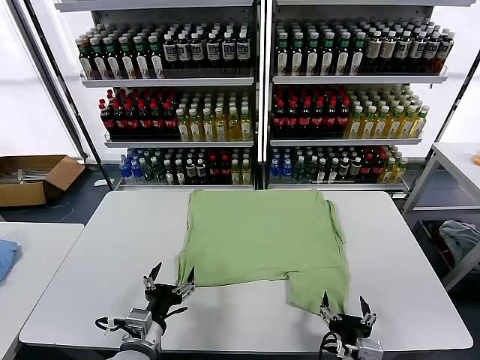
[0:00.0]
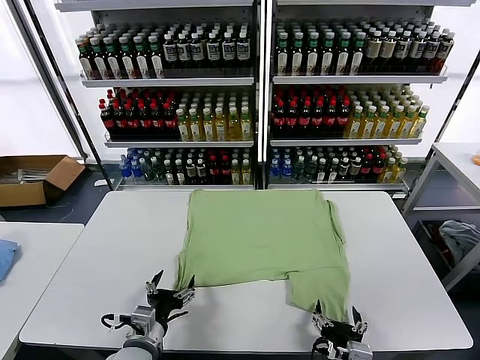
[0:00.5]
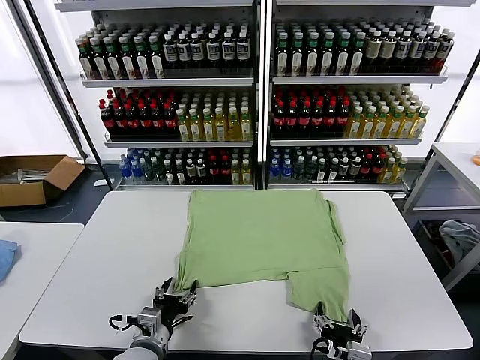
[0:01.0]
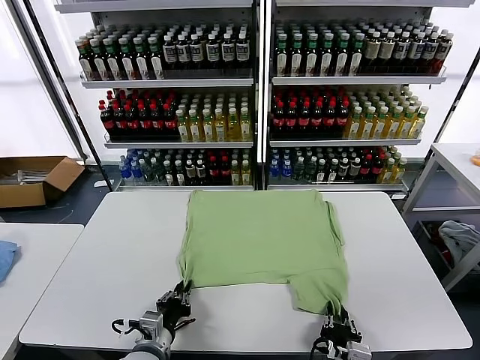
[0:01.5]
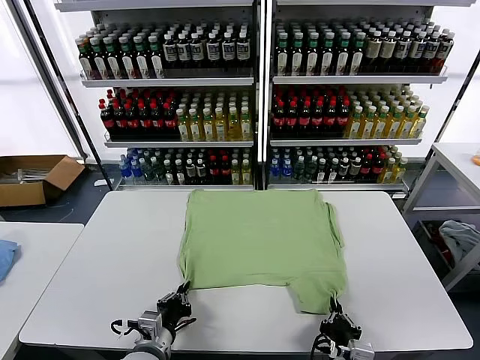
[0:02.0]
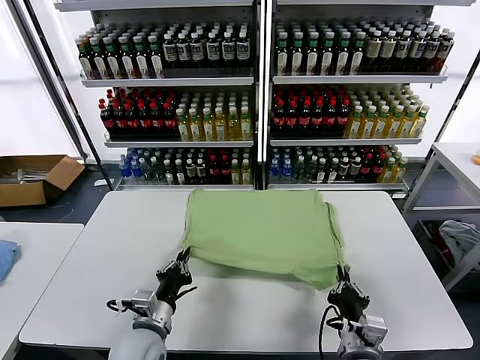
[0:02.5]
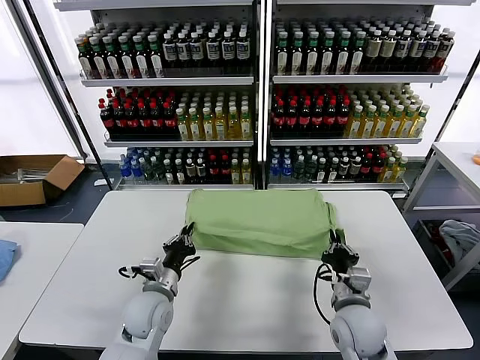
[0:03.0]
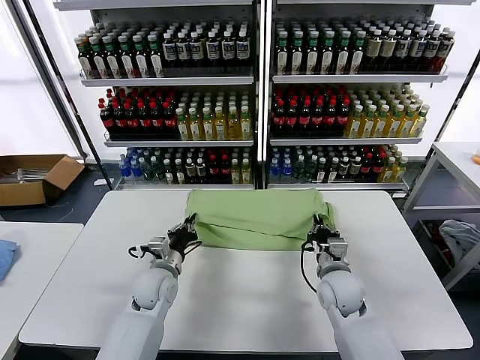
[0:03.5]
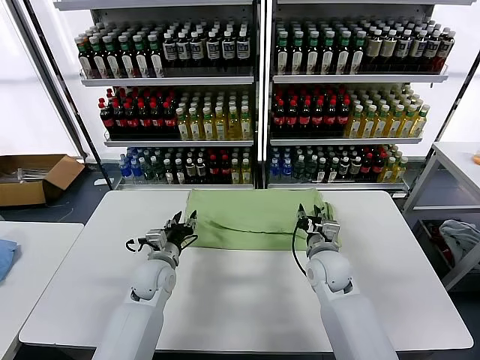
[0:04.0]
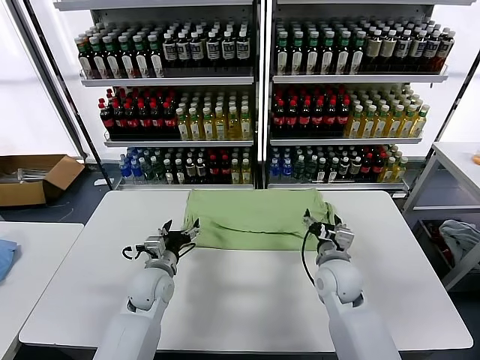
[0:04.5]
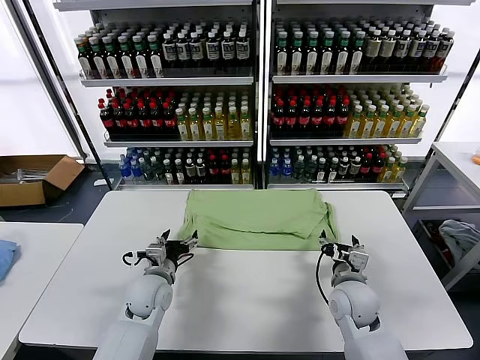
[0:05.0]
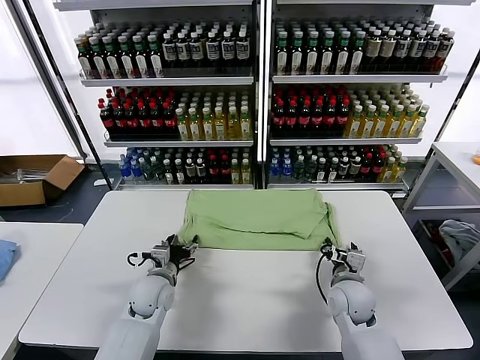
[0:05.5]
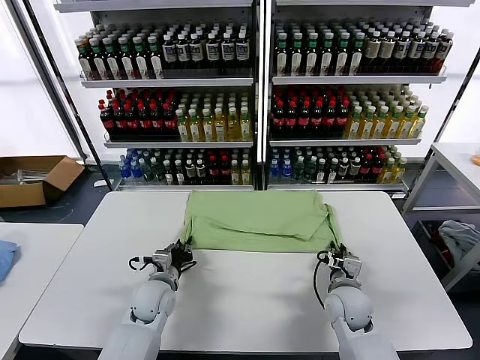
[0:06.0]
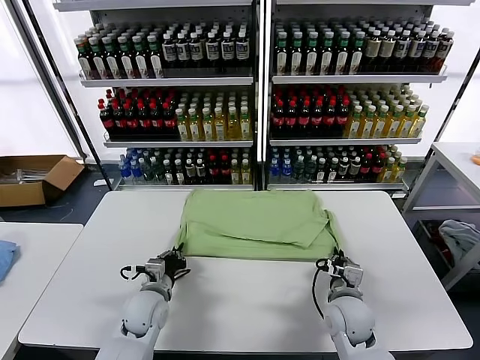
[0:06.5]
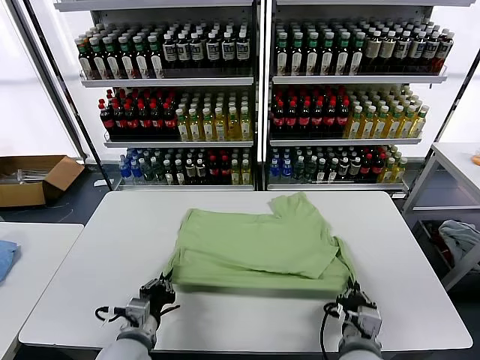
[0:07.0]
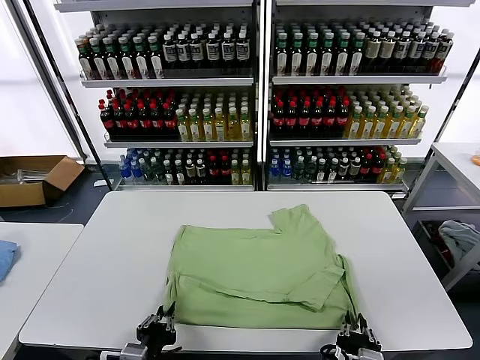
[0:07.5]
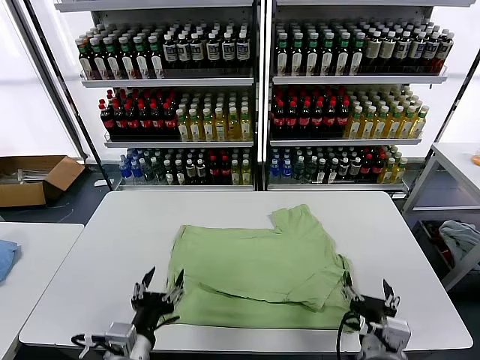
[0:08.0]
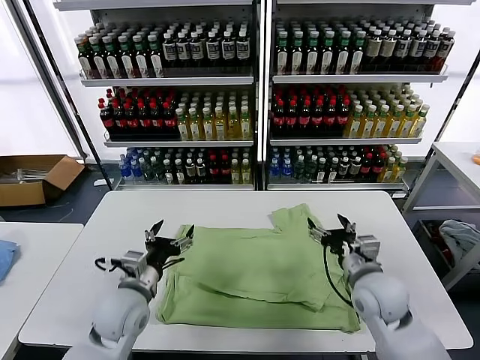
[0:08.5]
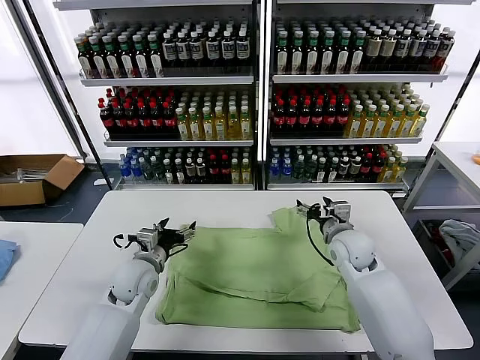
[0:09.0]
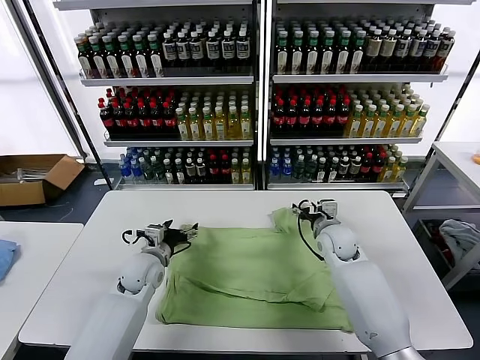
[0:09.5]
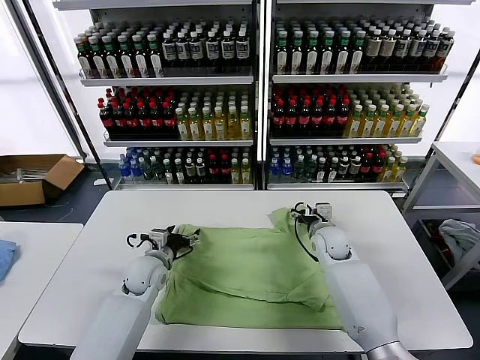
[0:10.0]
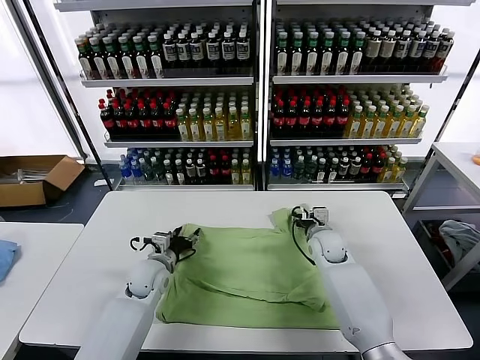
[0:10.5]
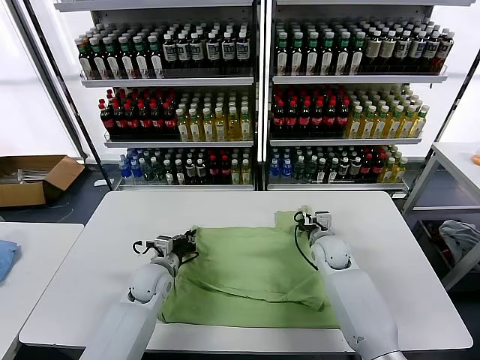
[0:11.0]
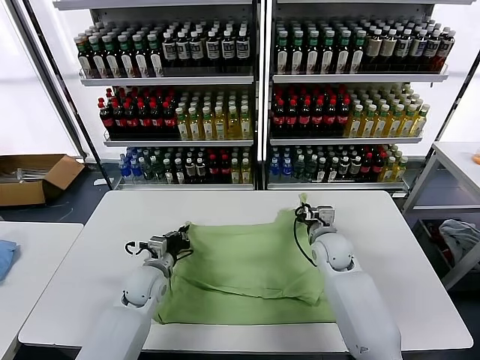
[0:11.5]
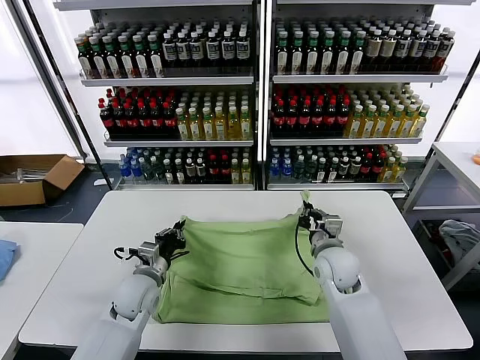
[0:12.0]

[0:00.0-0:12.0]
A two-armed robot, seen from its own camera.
Task of the whole recording: fold and organize the clothes.
Step, 0:00.0 to 0:01.5: use both grippers simultaneously to clamp the lower edge of the clothing fabric.
Step, 0:02.0 to 0:04.0: use both grippers to drag the lower edge of the fabric forward and fold it over the upper edge.
Step, 0:04.5 to 0:07.5: Drag the clothes downward with both gripper.
Step, 0:08.0 to 0:11.0: use both grippers simultaneously to clamp the upper edge of the clothing fabric.
0:02.0 to 0:04.0: The two grippers go some 25 cm forward. The right gripper opens. Meanwhile the left gripper opens up.
0:04.0 to 0:06.0: The right gripper heads backward and downward, covering roughly 10 cm, and closes up. The left gripper changes place by roughly 5 cm, and opens and closes again.
0:06.0 to 0:08.0: Both grippers move backward and upward, some 20 cm. The left gripper opens up. The right gripper opens its fingers.
0:08.0 to 0:10.0: Both grippers move forward, approximately 30 cm.
0:10.0 to 0:12.0: The left gripper is displaced backward by about 5 cm, and closes up. Meanwhile the right gripper is displaced backward by approximately 10 cm, and closes up.

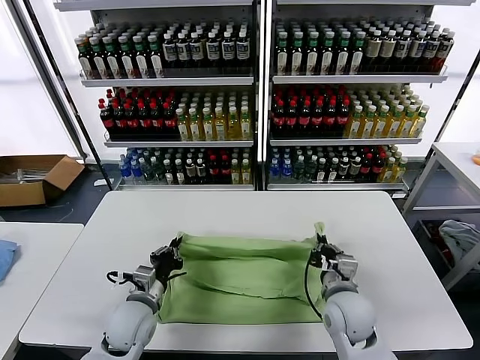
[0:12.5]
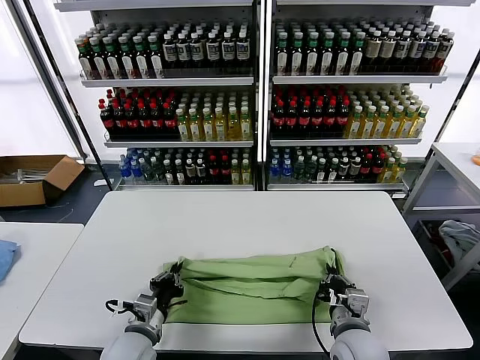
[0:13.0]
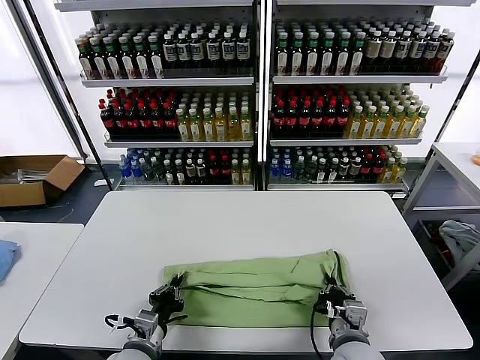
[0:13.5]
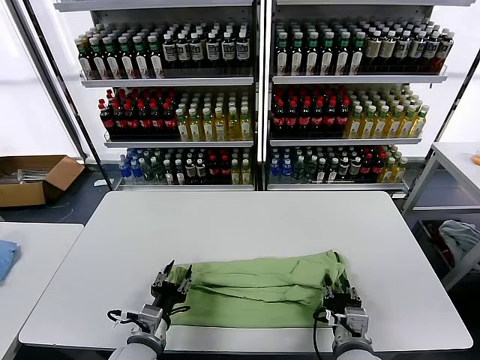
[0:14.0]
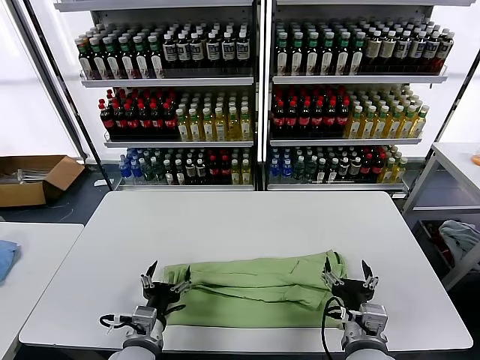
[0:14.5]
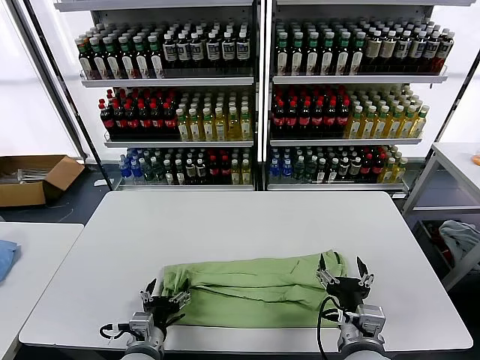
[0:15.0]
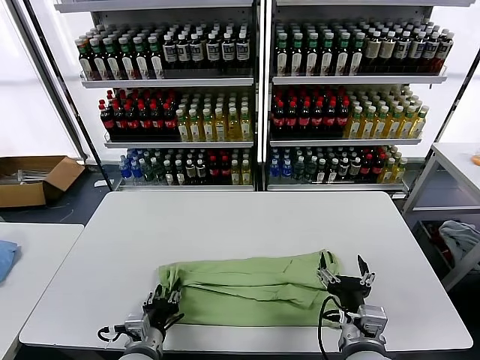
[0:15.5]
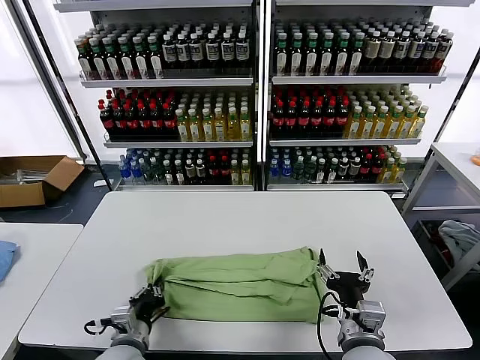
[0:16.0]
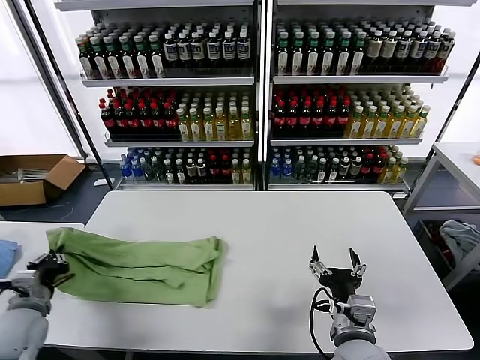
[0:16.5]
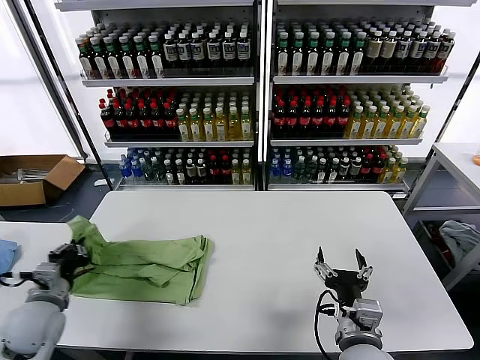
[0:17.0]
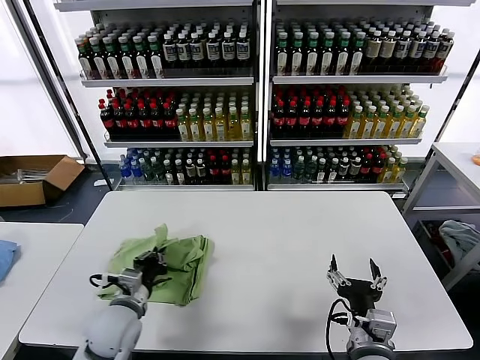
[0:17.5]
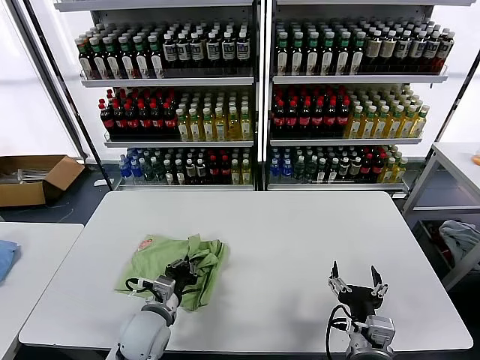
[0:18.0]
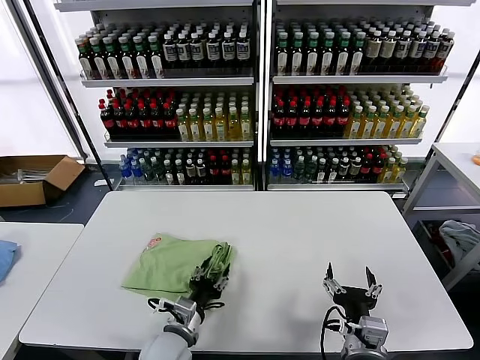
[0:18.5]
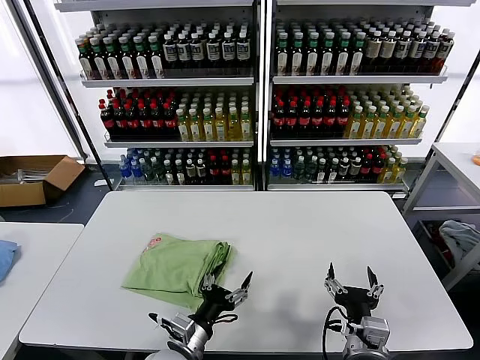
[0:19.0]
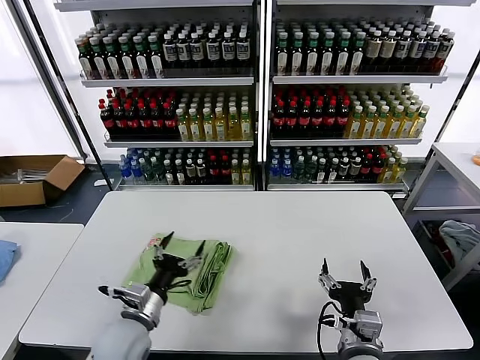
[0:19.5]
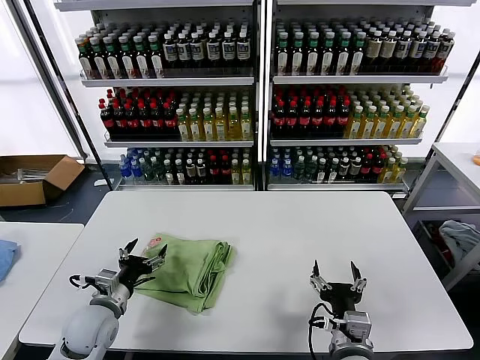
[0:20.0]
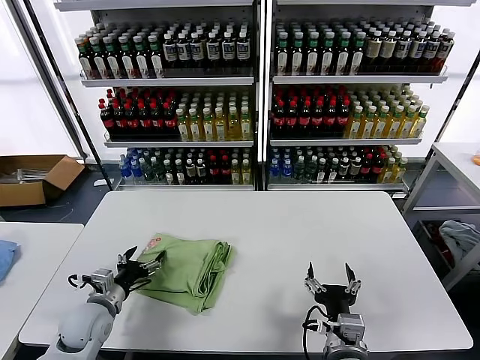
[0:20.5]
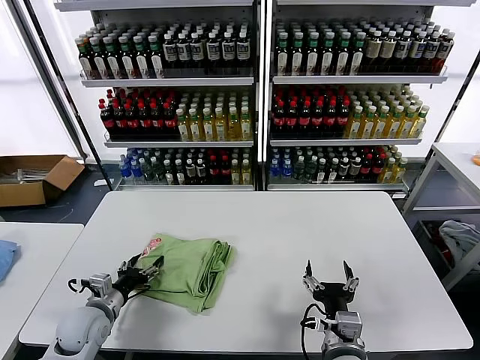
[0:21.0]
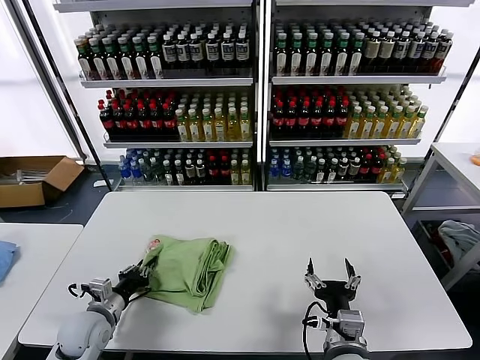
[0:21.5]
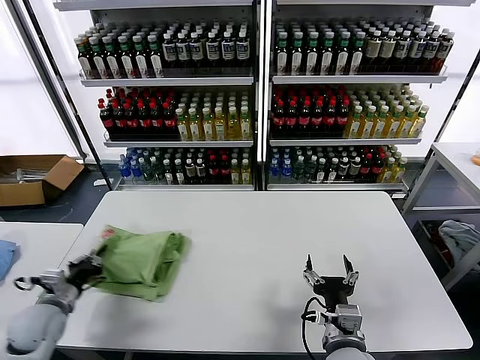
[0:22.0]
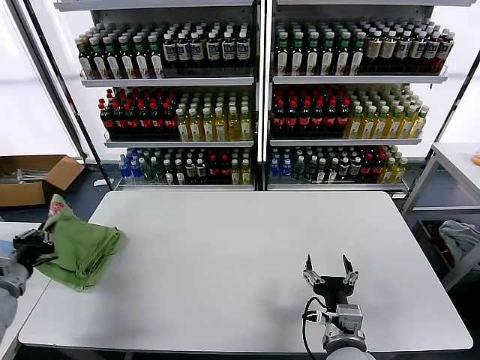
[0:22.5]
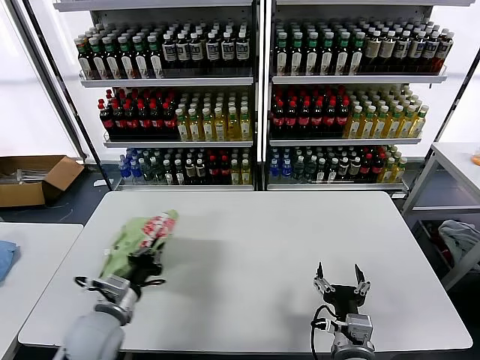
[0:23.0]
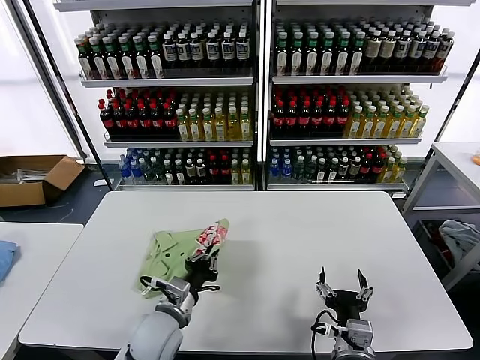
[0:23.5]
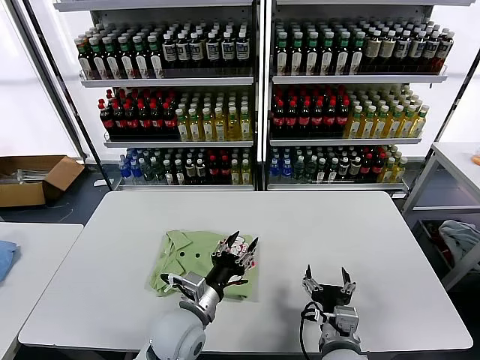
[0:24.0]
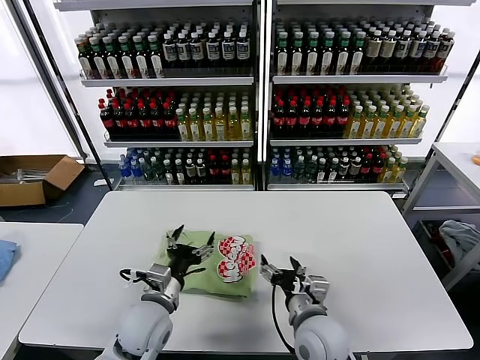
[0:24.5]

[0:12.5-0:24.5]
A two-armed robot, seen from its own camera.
Task of the whole recording: fold and organize the clothes.
Step, 0:12.5 to 0:14.0: use both grippers to drag the upper edge of the fabric backward and fold it over the lower edge.
Step, 0:14.5 to 0:15.5: use the left gripper to clamp the left edge of the fabric.
Step, 0:16.0 to 0:18.5: use the left gripper to drag the left edge of the fabric to the left and folds it over the right edge.
Step, 0:19.0 to 0:23.5: Flip the folded clothes over with left gripper.
0:12.5 to 0:14.5: Both grippers move backward, about 10 cm. The left gripper opens, while the right gripper opens.
0:14.5 to 0:16.5: The left gripper travels to the left by roughly 20 cm, and closes.
0:16.5 to 0:18.5: The left gripper shifts approximately 25 cm to the right, and opens up.
0:18.5 to 0:20.5: The left gripper heads to the left, covering approximately 20 cm, and opens its fingers.
0:20.5 to 0:22.5: The left gripper moves to the left and upward, about 20 cm, and closes its fingers.
0:22.5 to 0:24.5: The right gripper travels forward by some 5 cm, while the left gripper travels to the right by approximately 35 cm, and opens its fingers.

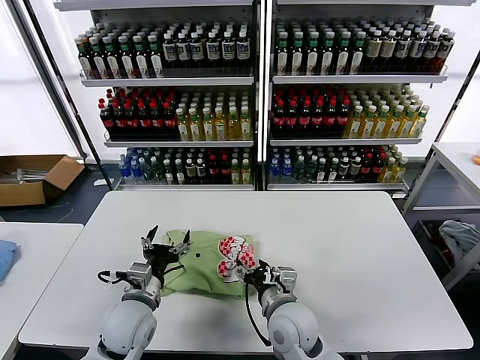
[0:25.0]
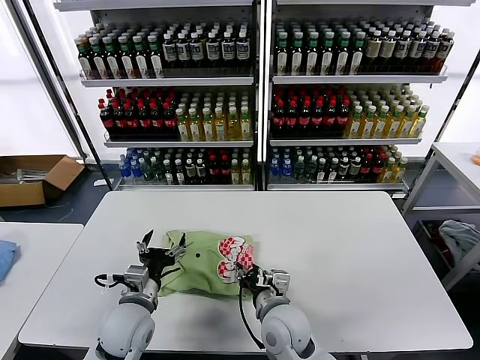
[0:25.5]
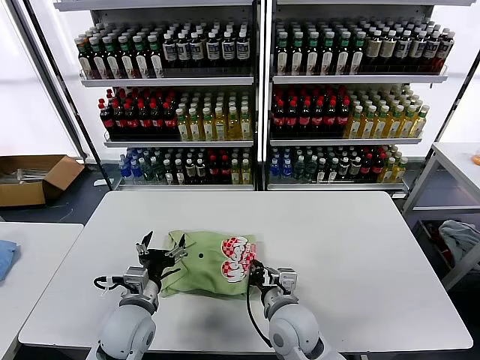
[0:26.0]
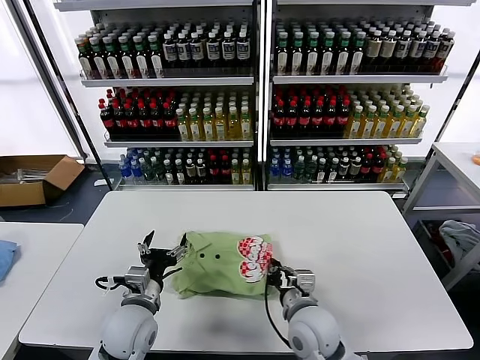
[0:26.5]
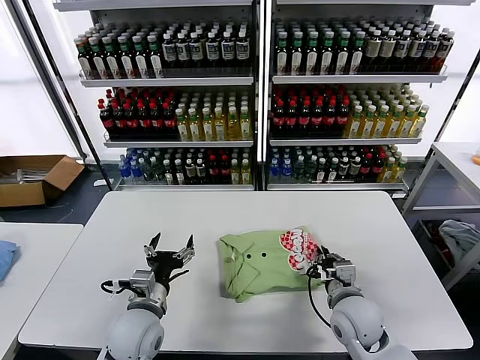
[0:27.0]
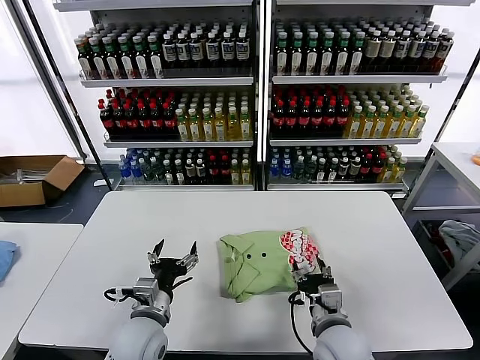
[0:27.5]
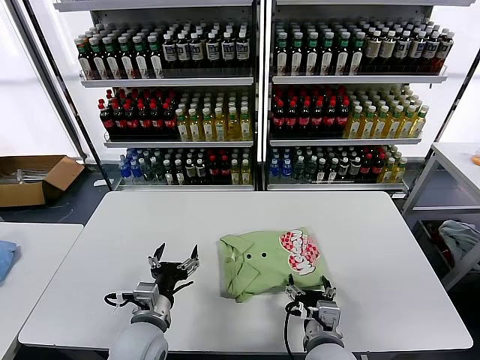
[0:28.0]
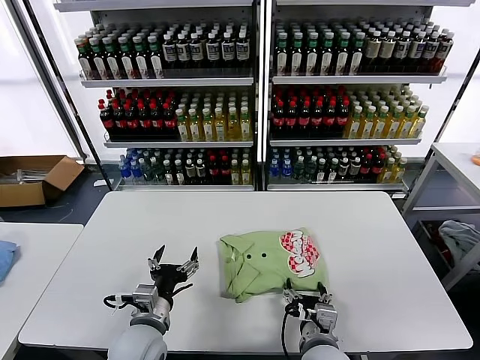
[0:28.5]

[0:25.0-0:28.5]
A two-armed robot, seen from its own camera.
Task of the whole recording: fold and organize the clothes.
0:25.0 to 0:27.0: The right gripper moves to the right, about 15 cm, and closes.
0:27.0 to 0:28.5: The right gripper moves backward and to the left, roughly 10 cm, and opens.
